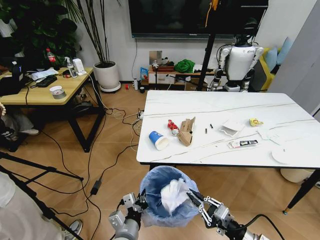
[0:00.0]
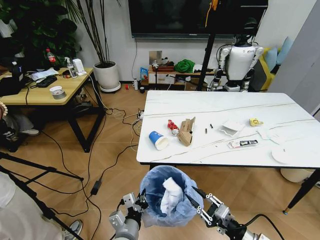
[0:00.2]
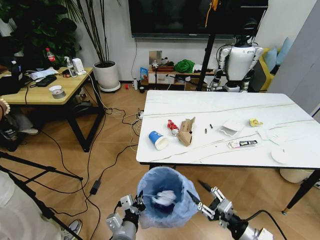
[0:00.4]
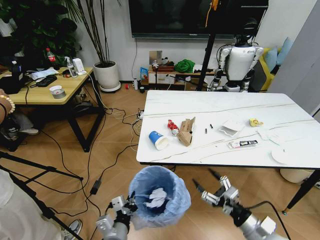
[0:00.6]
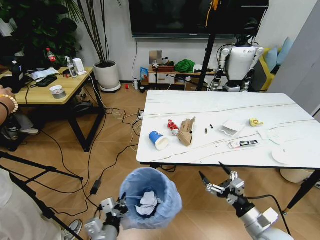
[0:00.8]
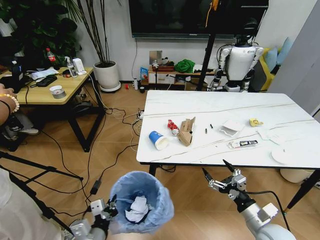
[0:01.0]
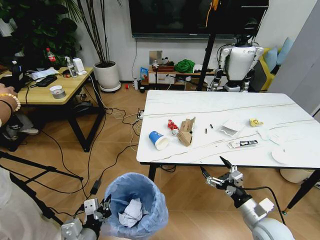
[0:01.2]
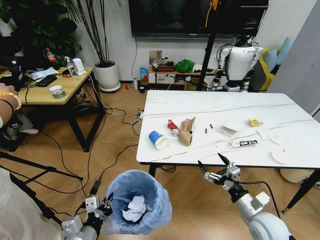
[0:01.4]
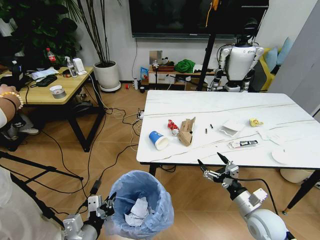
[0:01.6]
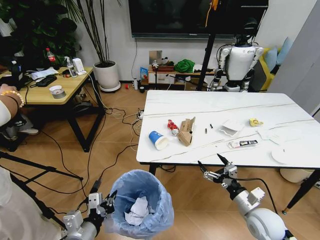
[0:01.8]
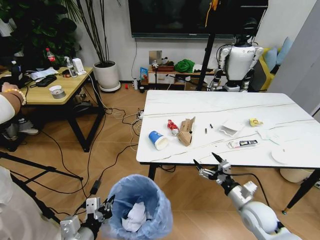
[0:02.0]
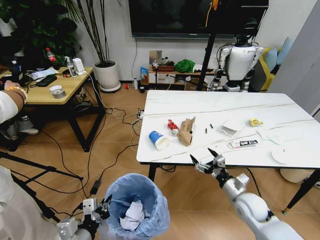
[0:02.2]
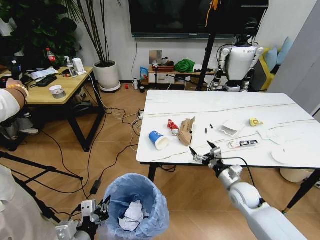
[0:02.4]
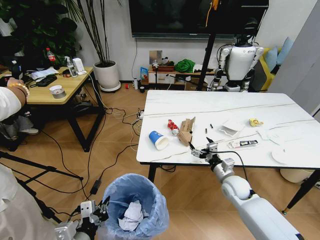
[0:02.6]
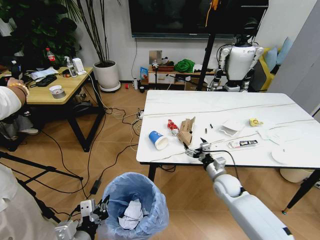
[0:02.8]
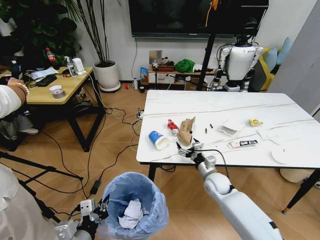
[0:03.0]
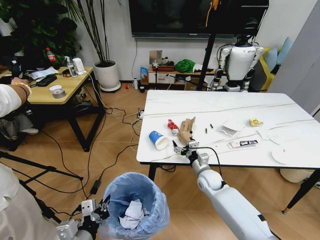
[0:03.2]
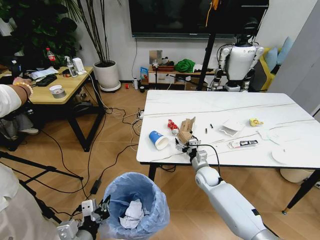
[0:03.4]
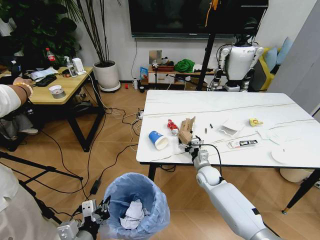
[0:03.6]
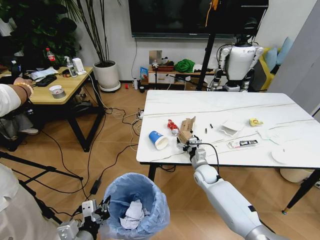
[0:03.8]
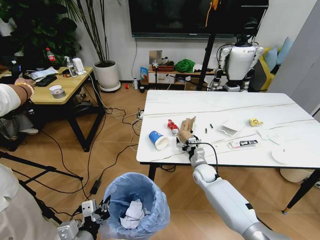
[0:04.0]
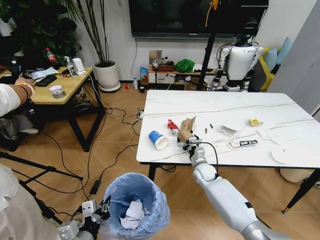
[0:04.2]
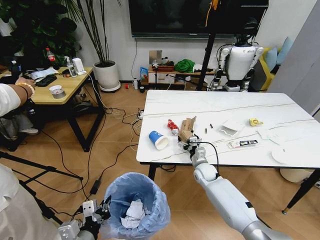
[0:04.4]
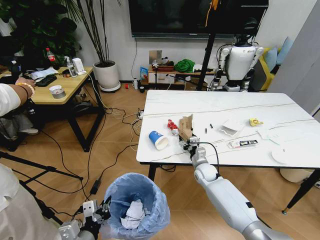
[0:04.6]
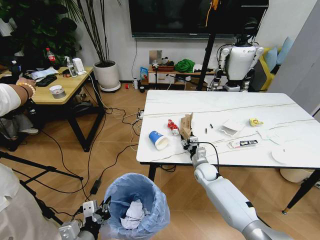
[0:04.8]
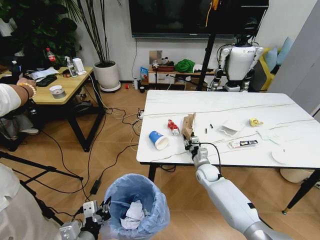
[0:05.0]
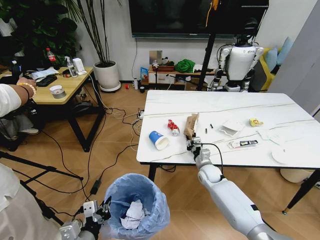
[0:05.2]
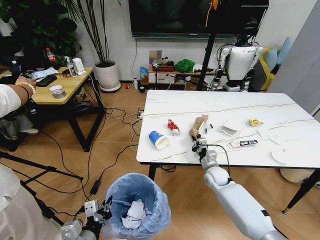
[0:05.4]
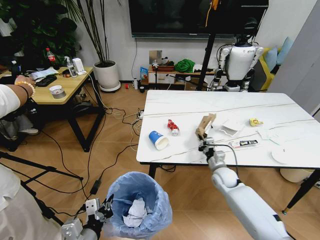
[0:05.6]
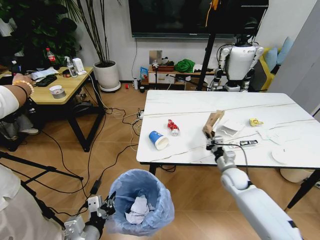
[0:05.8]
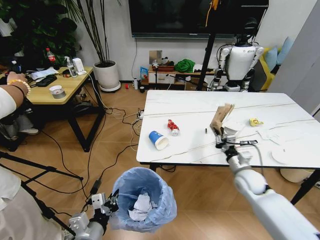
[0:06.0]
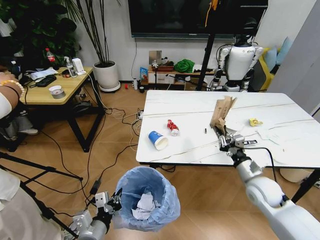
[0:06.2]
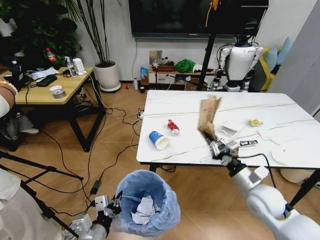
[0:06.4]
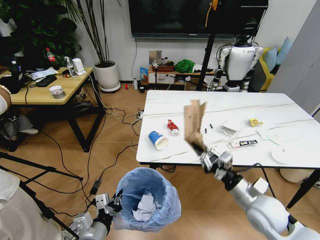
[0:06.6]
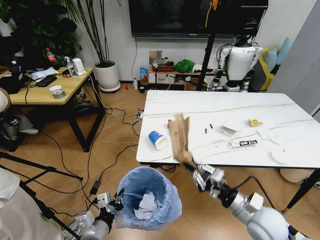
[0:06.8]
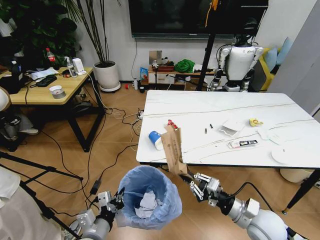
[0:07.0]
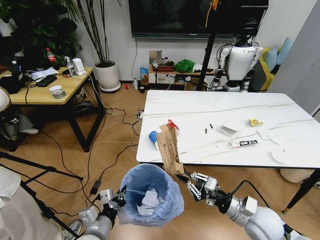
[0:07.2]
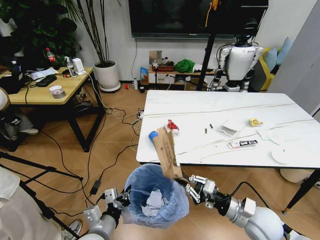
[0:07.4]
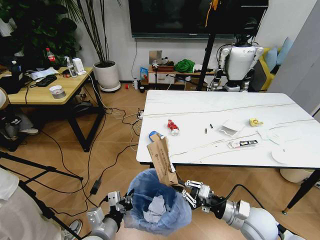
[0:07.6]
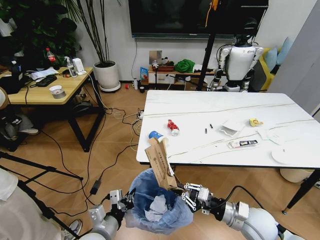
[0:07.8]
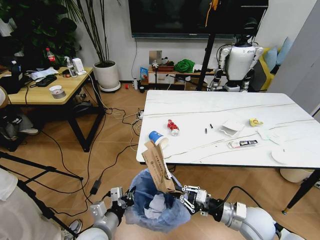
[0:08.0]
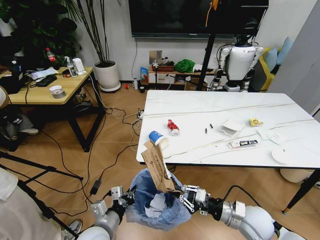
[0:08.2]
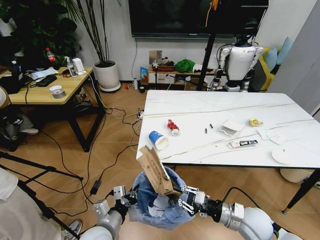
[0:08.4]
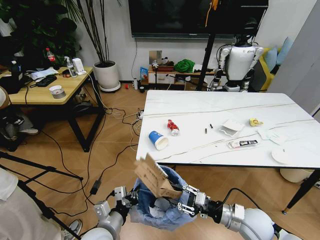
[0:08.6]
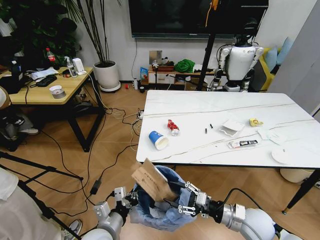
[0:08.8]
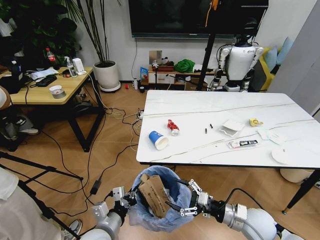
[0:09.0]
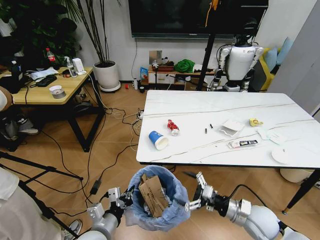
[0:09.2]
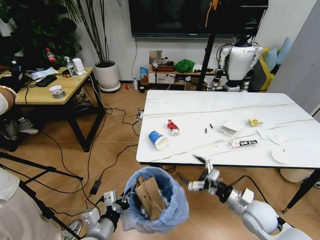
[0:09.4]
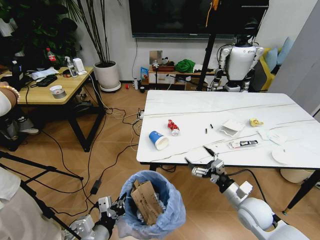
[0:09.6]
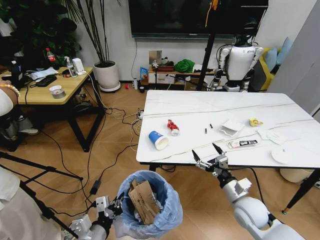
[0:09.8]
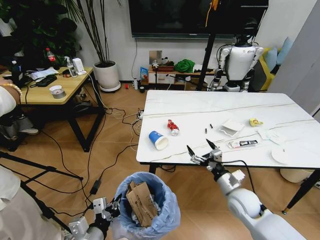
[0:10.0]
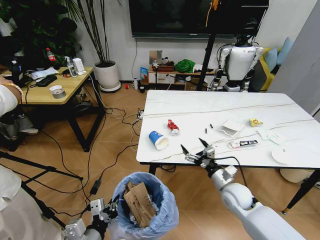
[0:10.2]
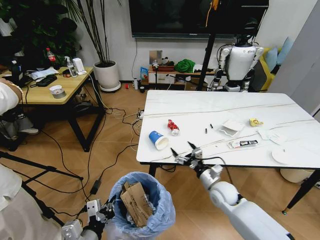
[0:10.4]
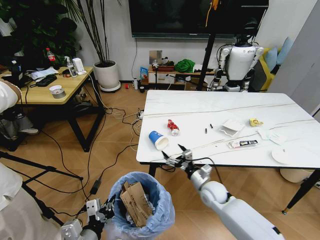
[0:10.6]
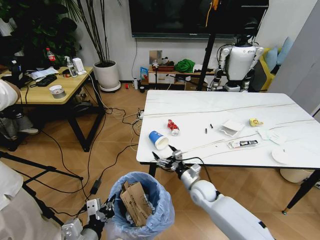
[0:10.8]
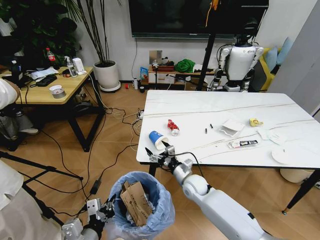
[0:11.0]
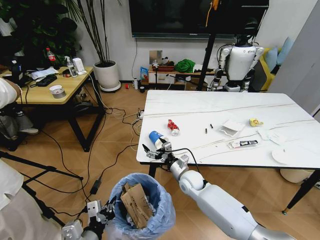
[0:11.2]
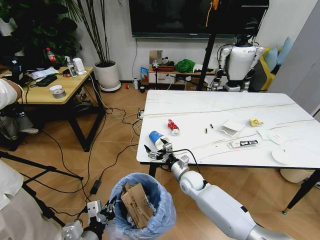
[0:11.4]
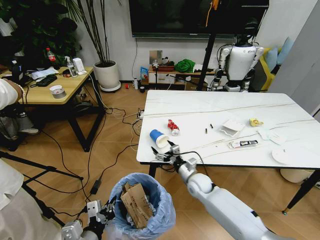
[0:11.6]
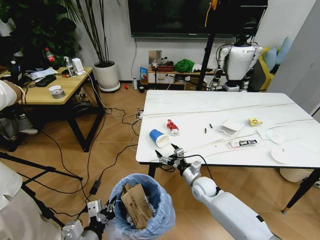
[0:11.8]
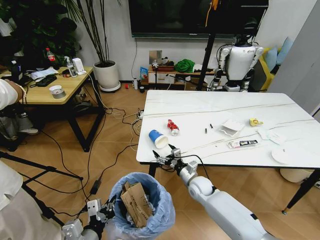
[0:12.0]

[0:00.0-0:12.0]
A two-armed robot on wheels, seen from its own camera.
Task of the whole recording: Pick up the trash bin and place the trash from the table into it.
0:00.0 to 0:01.6: The right gripper travels forward by some 10 cm, and opens its fingers. The left gripper shifts some 15 cm to the left and upward.
0:01.6 to 0:03.0: The right gripper travels forward and to the left by some 20 cm.
0:03.0 to 0:04.4: The right gripper travels forward by approximately 5 cm.
0:04.4 to 0:06.0: The right gripper travels to the right, upward and backward by about 20 cm, and closes.
0:06.0 to 0:07.6: The right gripper heads backward, covering approximately 15 cm.
0:07.6 to 0:09.0: The right gripper opens up.
0:09.0 to 0:10.4: The right gripper shifts roughly 10 cm forward, while the left gripper is displaced backward by some 5 cm.
0:10.4 to 0:12.0: The right gripper goes about 10 cm to the left, downward and forward.

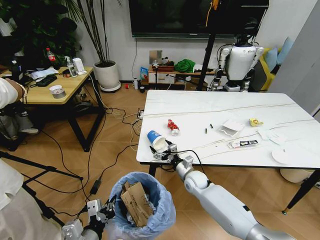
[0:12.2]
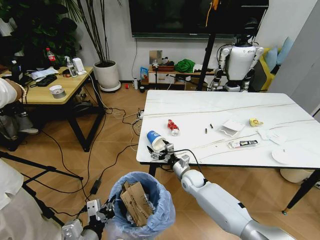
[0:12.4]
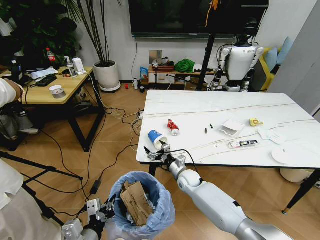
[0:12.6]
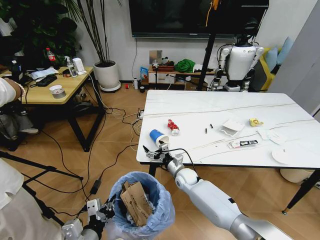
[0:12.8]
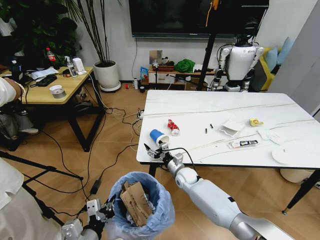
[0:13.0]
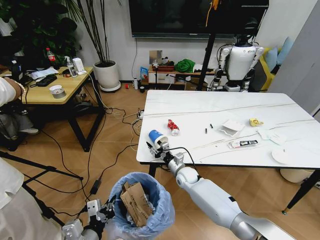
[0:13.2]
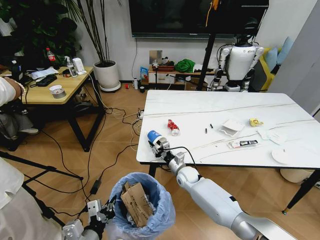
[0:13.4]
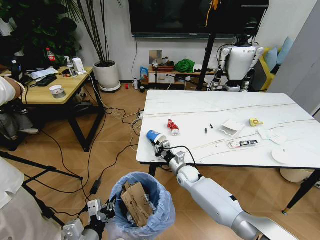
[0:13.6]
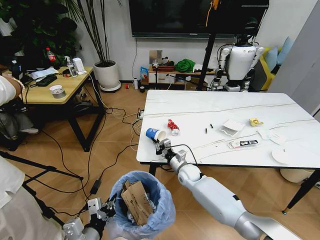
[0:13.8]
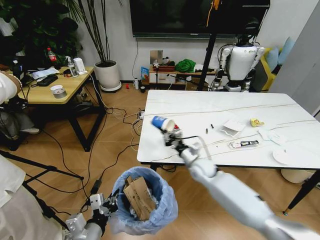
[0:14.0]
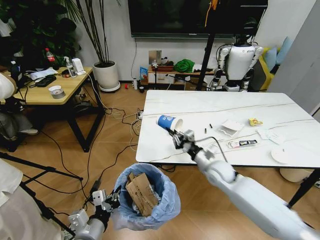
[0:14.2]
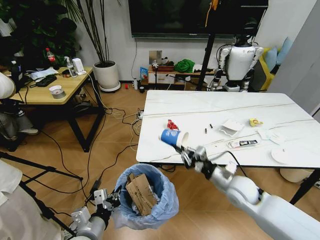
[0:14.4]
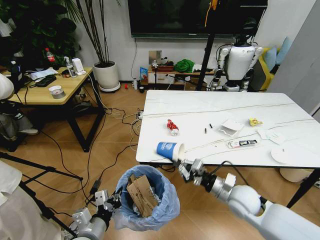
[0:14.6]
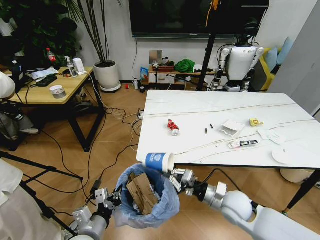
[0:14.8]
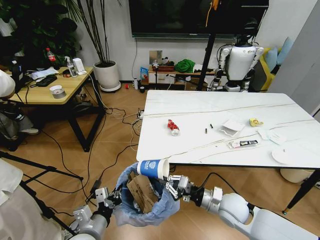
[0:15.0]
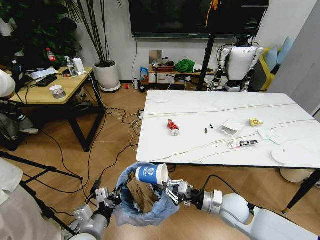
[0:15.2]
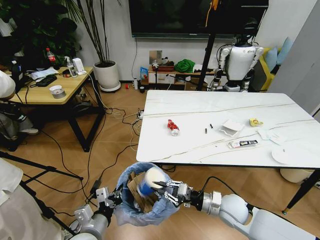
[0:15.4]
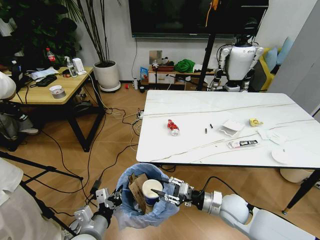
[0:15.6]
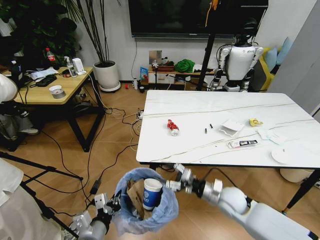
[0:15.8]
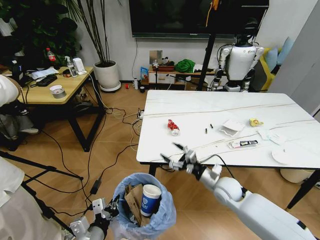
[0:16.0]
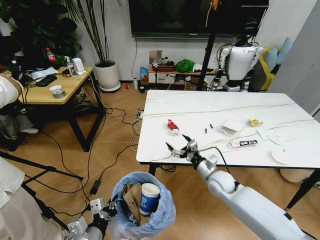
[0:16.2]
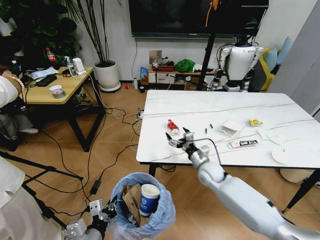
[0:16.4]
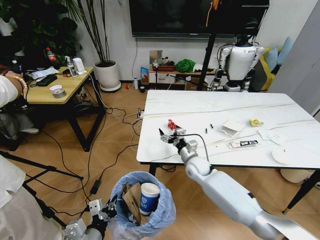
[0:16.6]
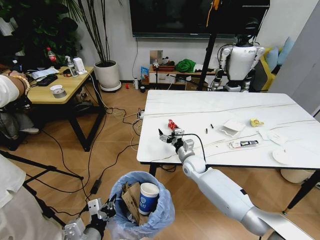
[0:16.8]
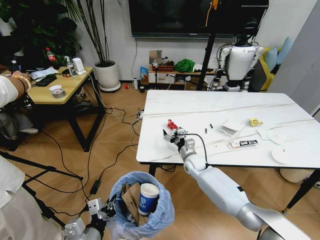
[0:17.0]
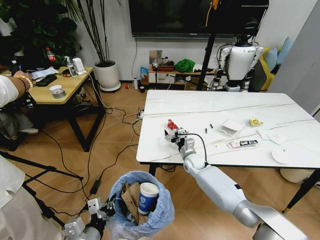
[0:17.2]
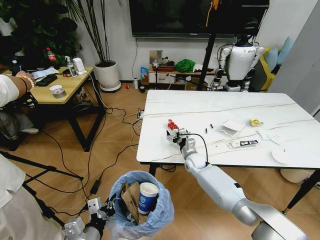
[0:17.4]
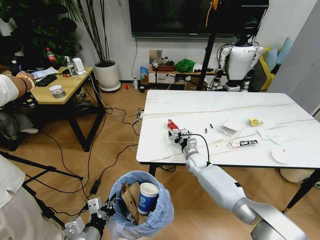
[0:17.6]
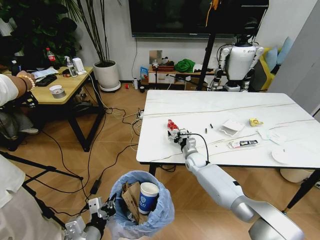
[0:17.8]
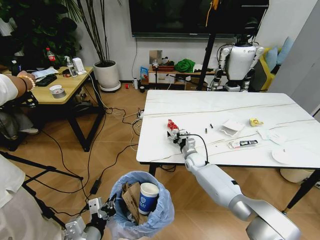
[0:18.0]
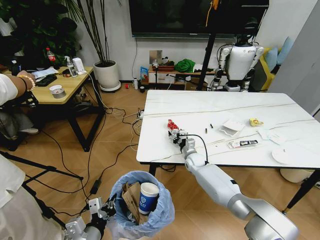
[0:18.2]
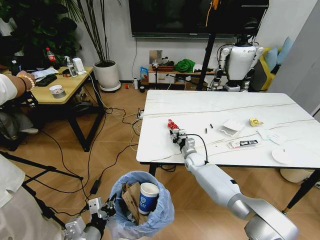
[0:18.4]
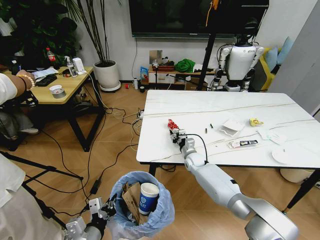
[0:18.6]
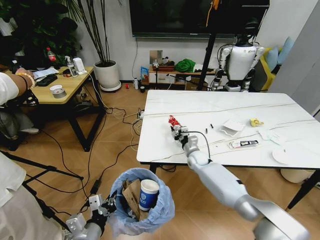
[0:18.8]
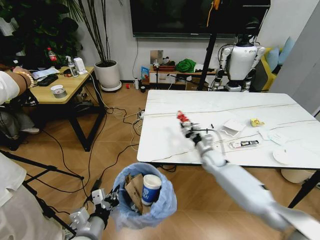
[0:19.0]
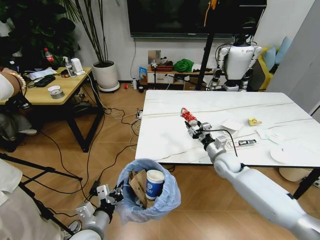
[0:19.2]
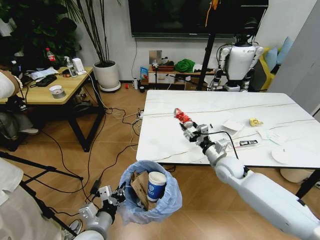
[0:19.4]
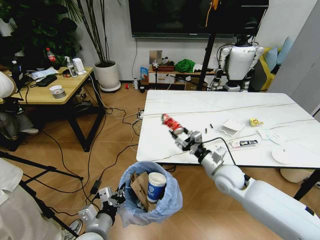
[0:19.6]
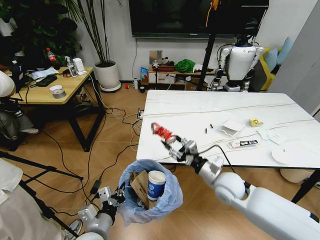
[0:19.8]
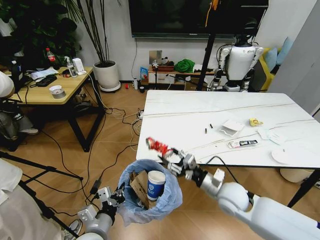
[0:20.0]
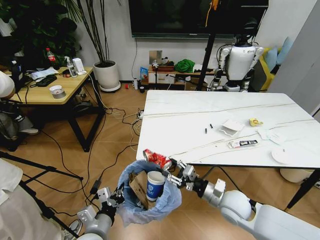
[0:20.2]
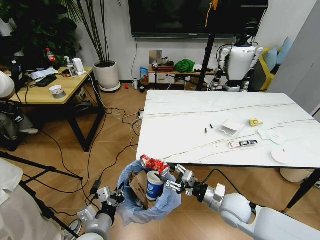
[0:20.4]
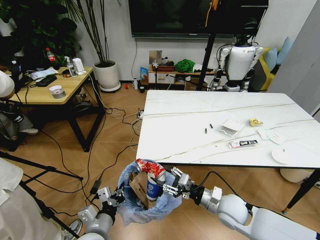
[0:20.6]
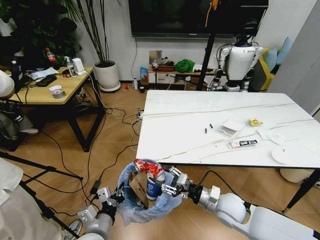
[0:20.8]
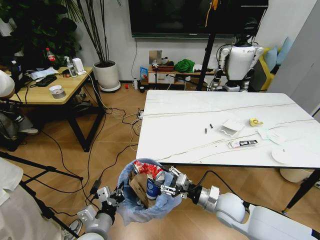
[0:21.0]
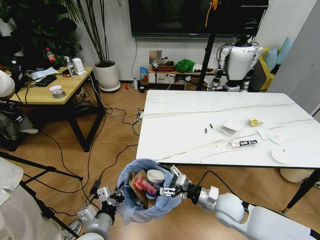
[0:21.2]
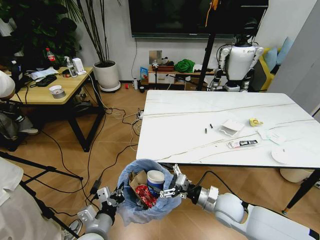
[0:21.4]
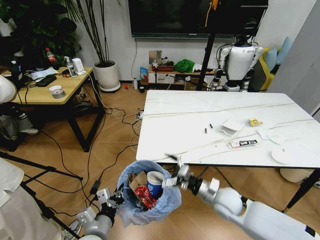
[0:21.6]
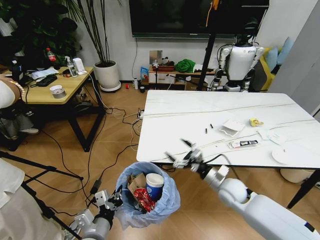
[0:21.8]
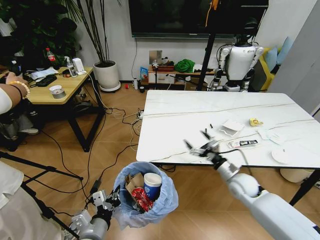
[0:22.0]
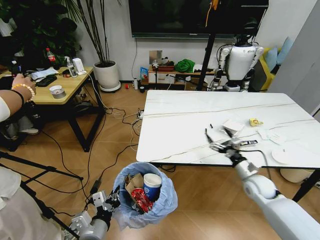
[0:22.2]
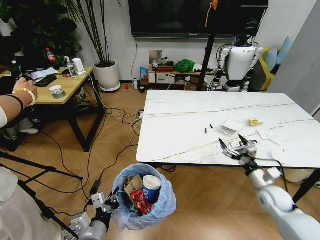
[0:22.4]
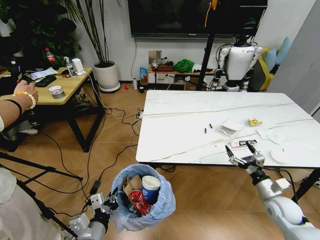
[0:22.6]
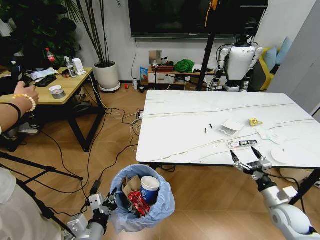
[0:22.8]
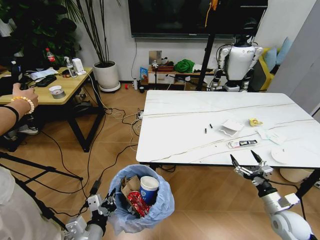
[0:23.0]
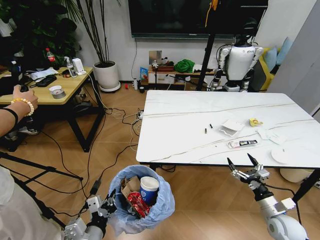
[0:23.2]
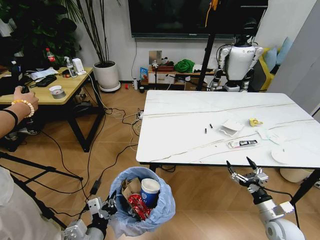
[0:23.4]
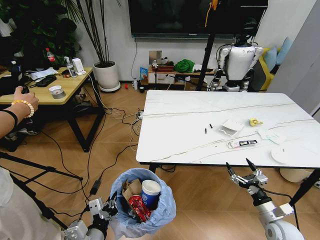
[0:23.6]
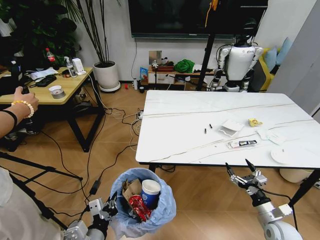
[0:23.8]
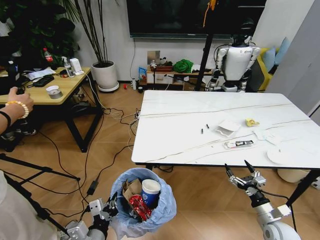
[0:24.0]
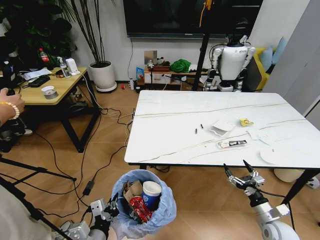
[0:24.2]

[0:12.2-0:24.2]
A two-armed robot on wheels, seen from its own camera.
Task of the whole recording: Pick up the trash bin and place the trash from the table into it.
0:12.2 to 0:13.8: The right gripper closes.
0:13.8 to 0:15.2: The right gripper shifts some 20 cm backward and to the right.
0:15.2 to 0:16.6: The right gripper heads forward and to the left, covering roughly 20 cm, and opens its fingers.
0:16.6 to 0:18.2: The right gripper is displaced downward and forward by roughly 10 cm.
0:18.2 to 0:19.8: The right gripper travels backward and upward by approximately 20 cm.
0:19.8 to 0:21.2: The right gripper goes approximately 5 cm downward and backward.
0:21.2 to 0:22.6: The right gripper is displaced to the right by roughly 20 cm.
0:22.6 to 0:24.2: The right gripper travels downward and backward by approximately 10 cm.
